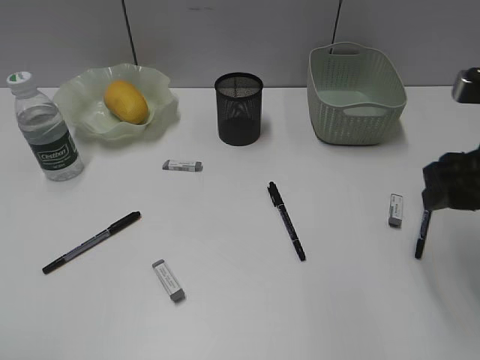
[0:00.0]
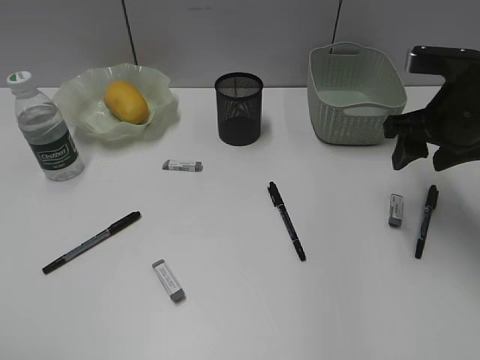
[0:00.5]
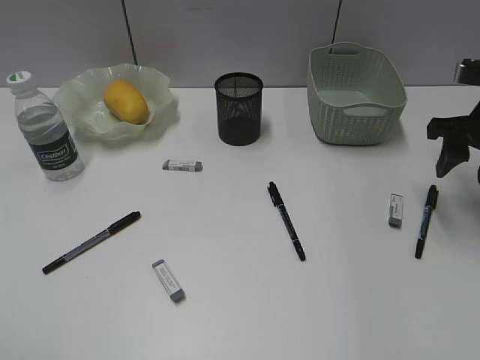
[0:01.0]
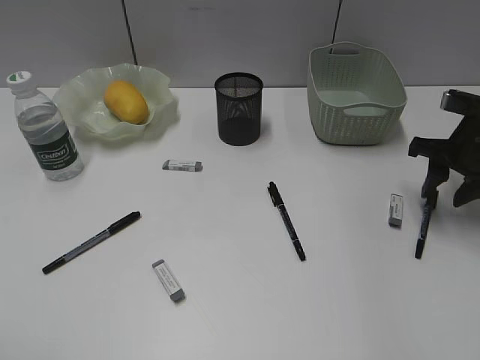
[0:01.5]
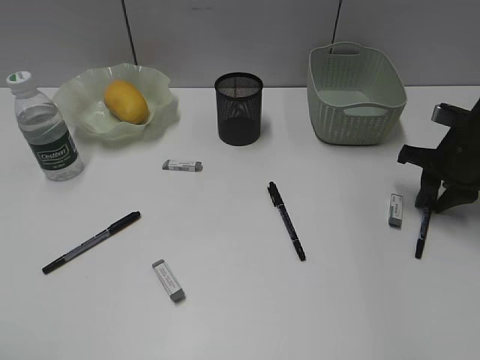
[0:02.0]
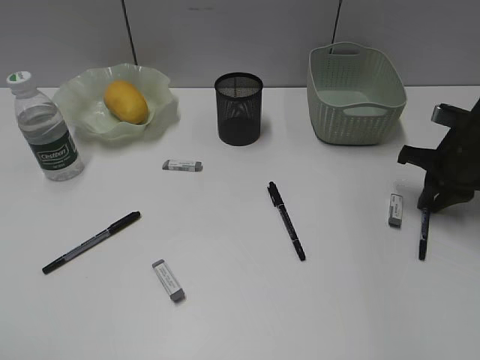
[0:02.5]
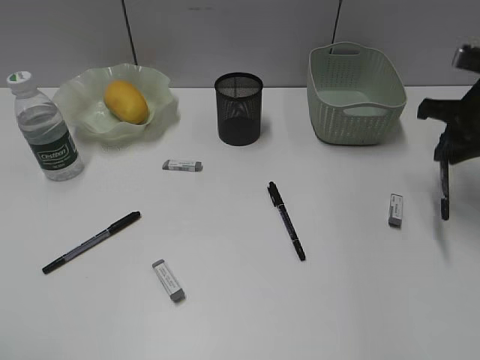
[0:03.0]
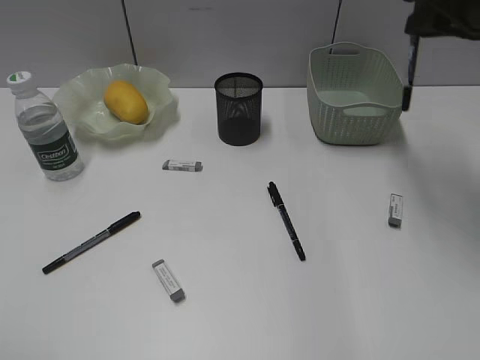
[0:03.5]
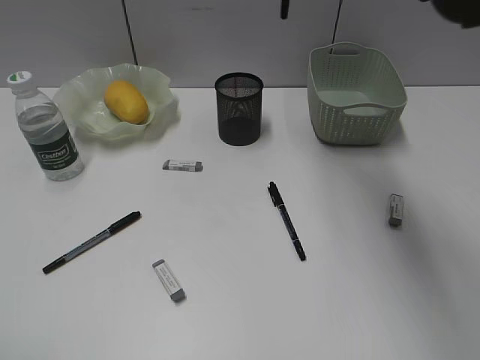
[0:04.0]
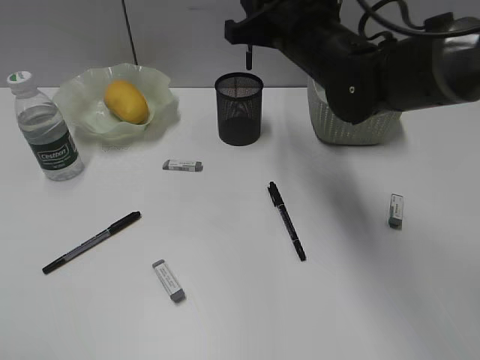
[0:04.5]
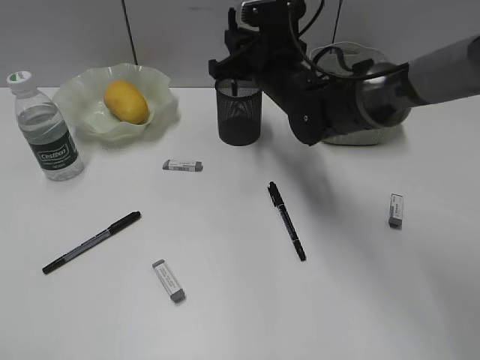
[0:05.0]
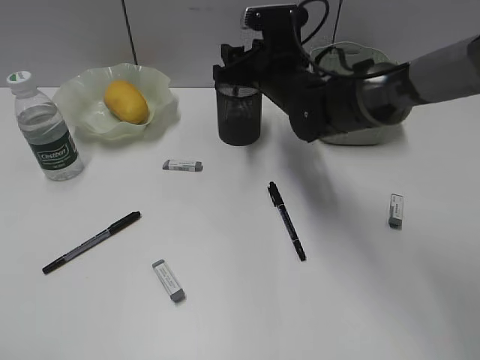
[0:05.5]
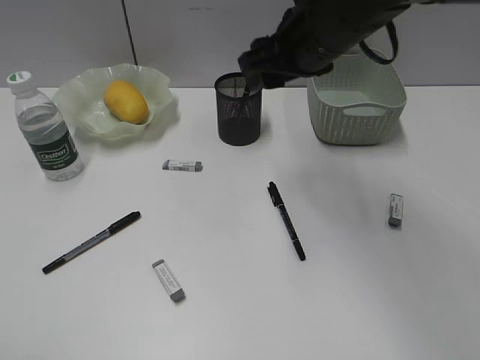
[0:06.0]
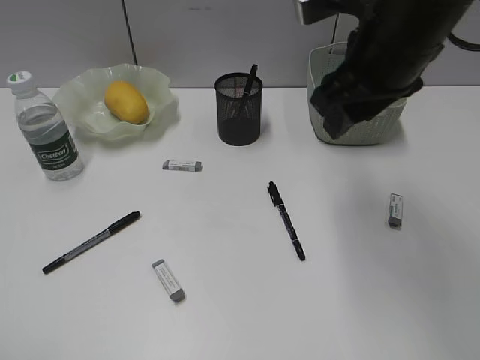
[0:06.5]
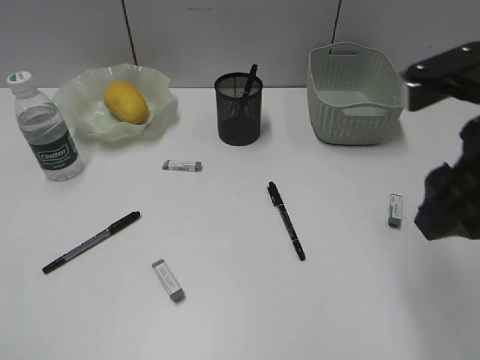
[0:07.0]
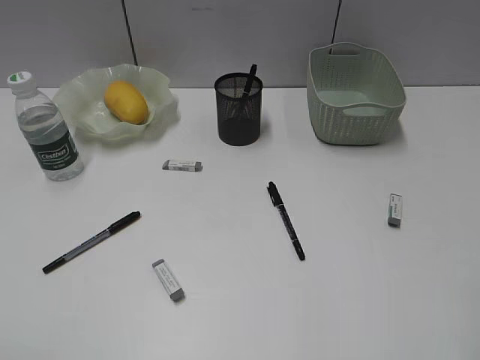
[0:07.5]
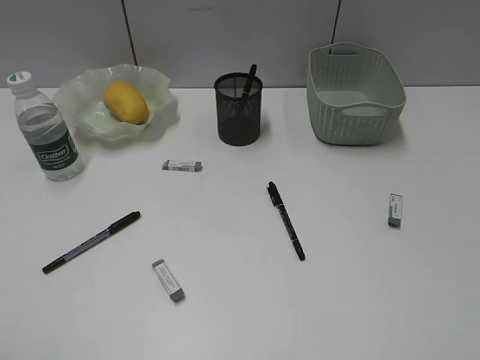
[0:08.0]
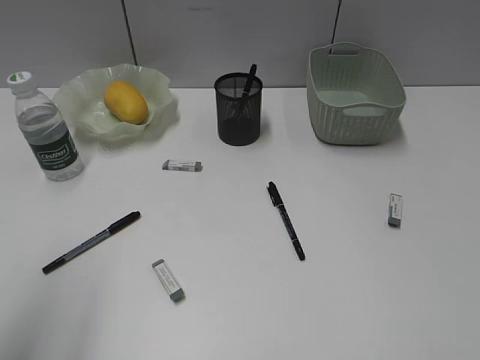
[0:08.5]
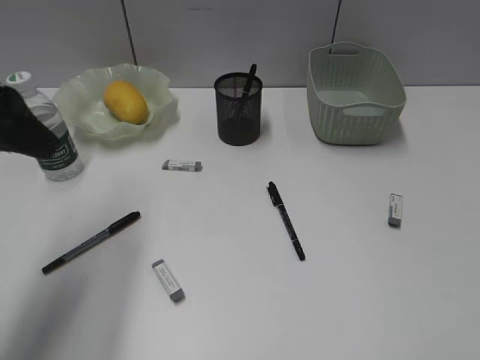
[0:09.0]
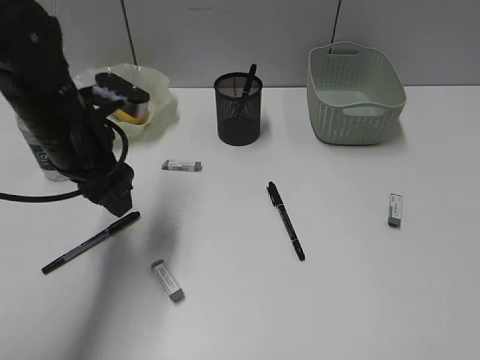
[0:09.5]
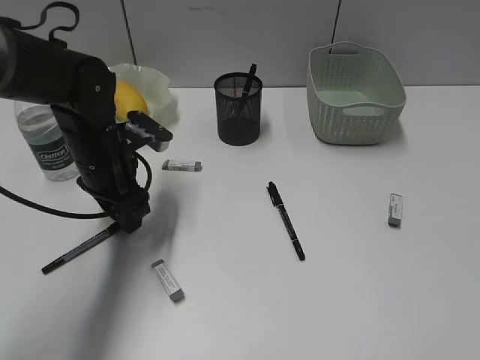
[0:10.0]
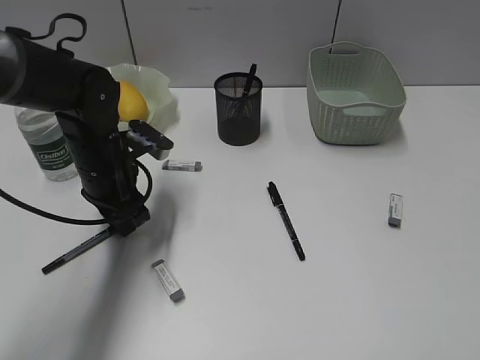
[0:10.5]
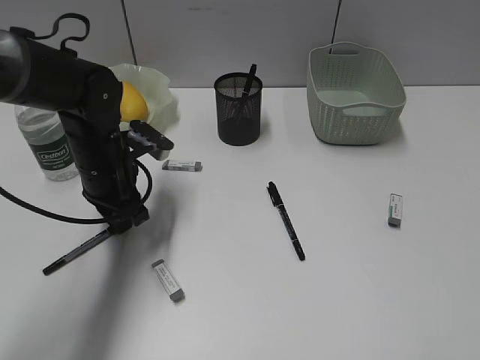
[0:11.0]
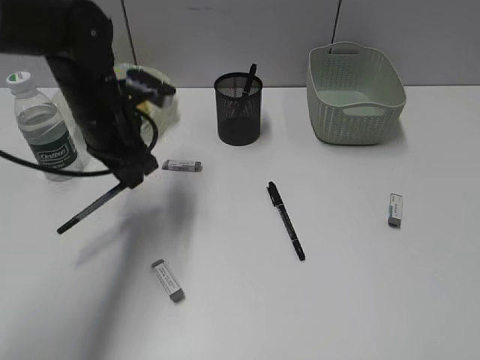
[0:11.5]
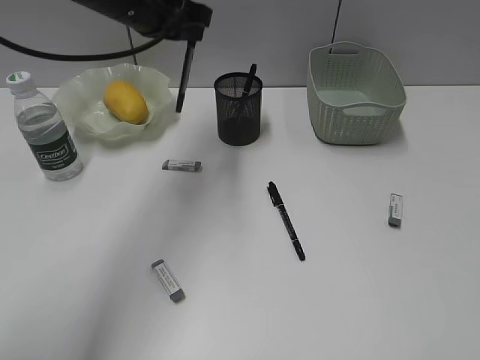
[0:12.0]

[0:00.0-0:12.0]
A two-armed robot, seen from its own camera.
Step, 0:00.0 to 0:02.5: Grasp the black pen with right gripper.
Step, 0:03.0 to 0:05.5: Place the black pen in pen holder with right gripper.
Step, 0:06.0 to 0:11.0: Grasp the black pen with left gripper.
0:00.0 to 0:02.0: The right gripper travels forward and downward by approximately 15 cm, and closes.
0:02.0 to 0:04.0: The right gripper travels upward and to the left by approximately 30 cm.
0:04.0 to 0:06.0: The right gripper is displaced downward by some 5 cm, and opens up.
0:06.0 to 0:08.0: The right gripper moves backward and to the right, roughly 40 cm.
0:08.0 to 0:10.0: The left gripper heads forward, downward and to the right, covering about 40 cm.
0:10.0 to 0:12.0: The left gripper travels upward by roughly 15 cm, and closes.

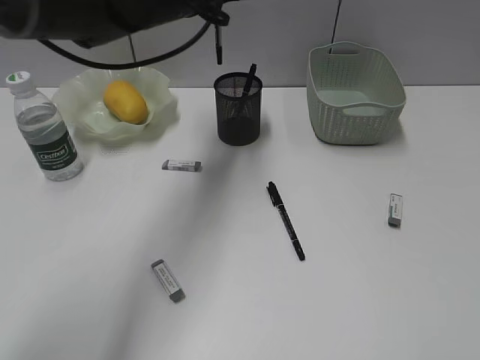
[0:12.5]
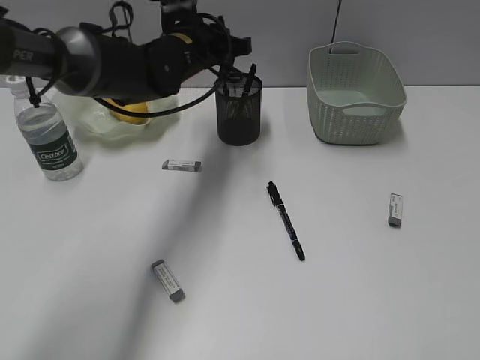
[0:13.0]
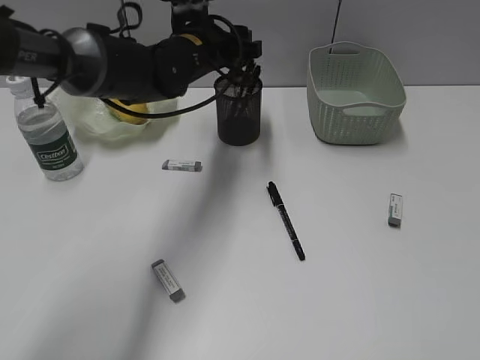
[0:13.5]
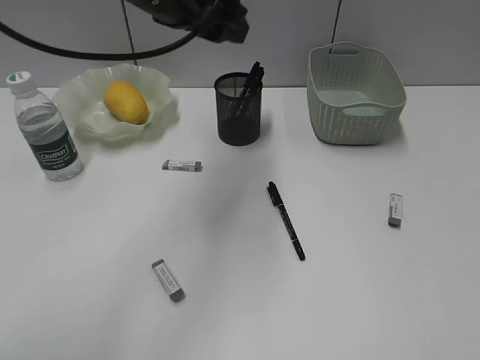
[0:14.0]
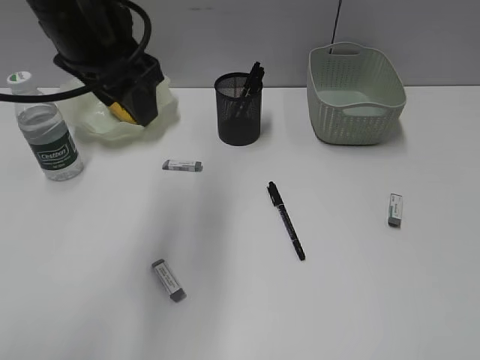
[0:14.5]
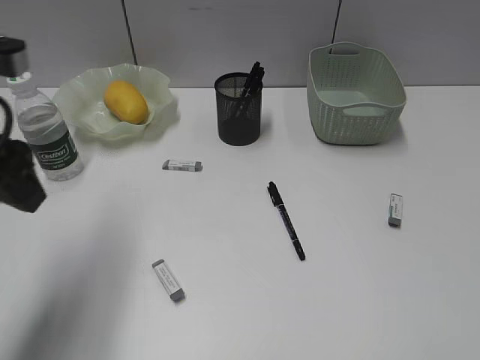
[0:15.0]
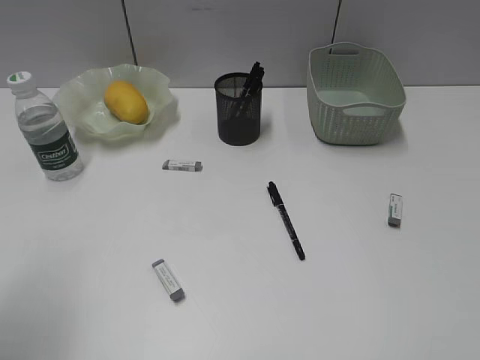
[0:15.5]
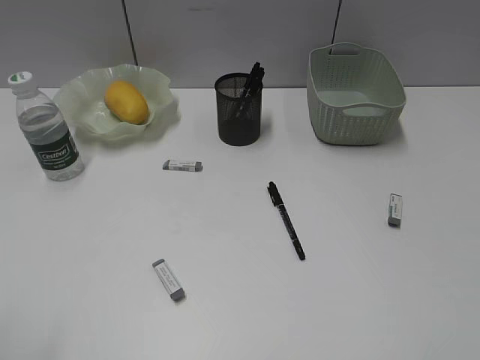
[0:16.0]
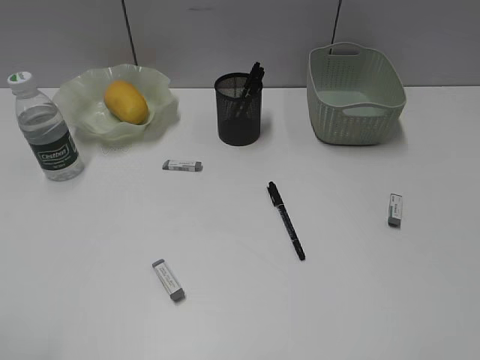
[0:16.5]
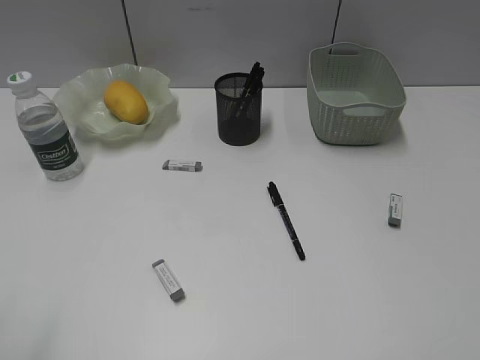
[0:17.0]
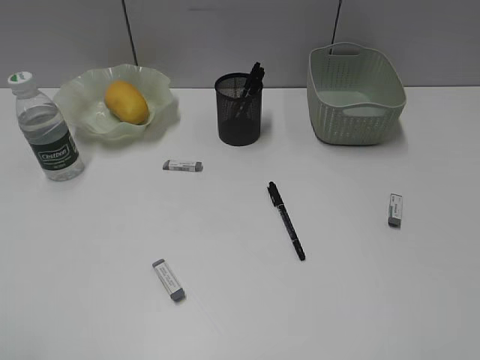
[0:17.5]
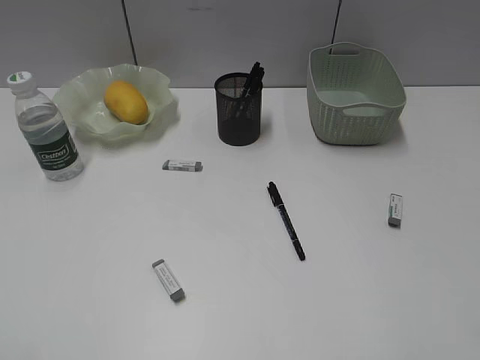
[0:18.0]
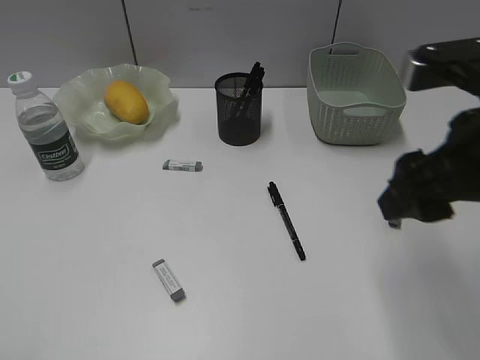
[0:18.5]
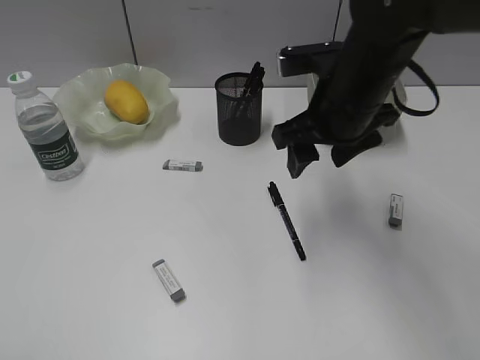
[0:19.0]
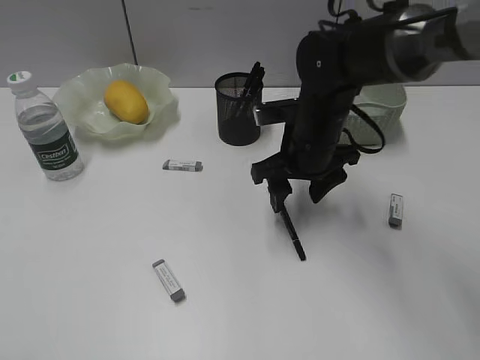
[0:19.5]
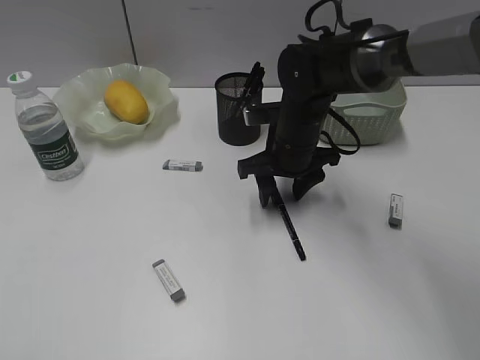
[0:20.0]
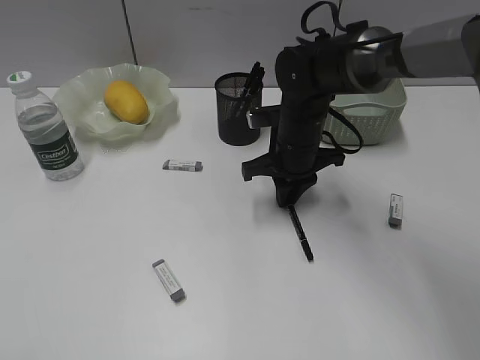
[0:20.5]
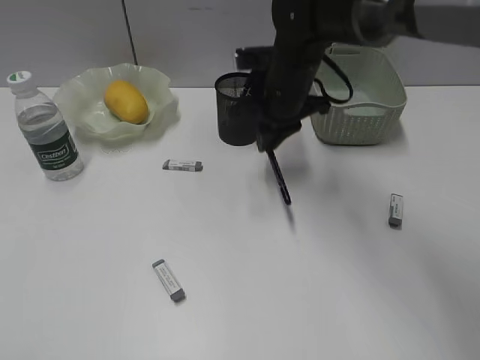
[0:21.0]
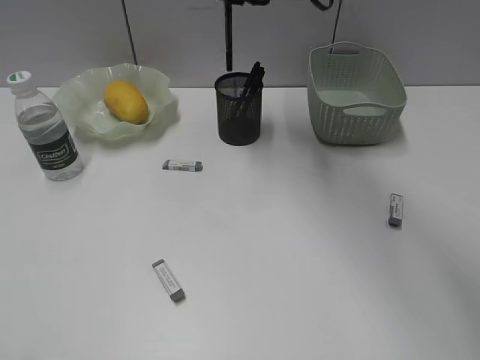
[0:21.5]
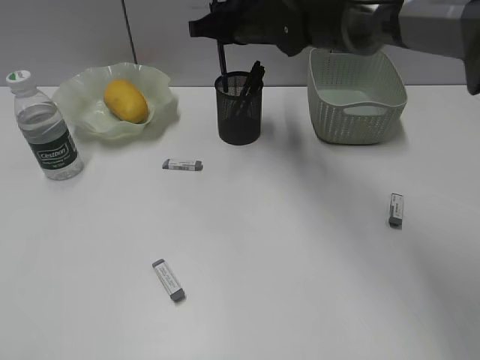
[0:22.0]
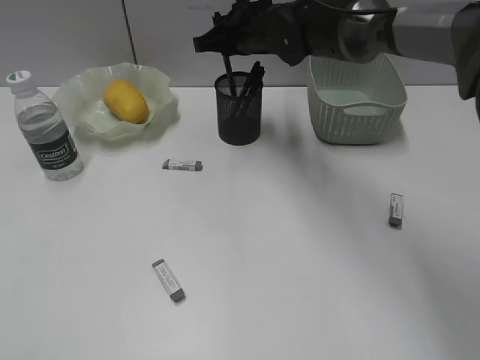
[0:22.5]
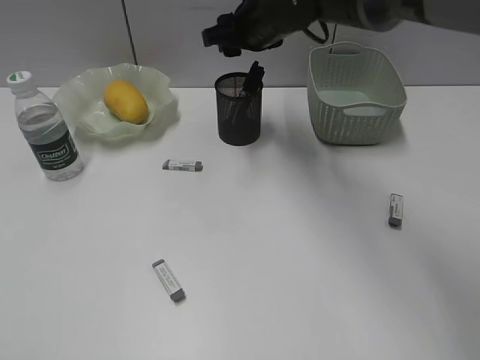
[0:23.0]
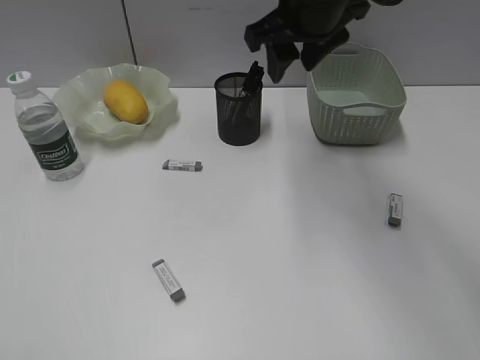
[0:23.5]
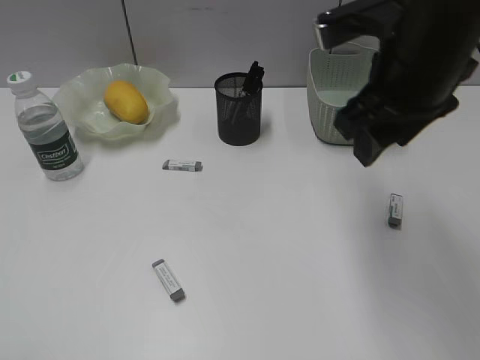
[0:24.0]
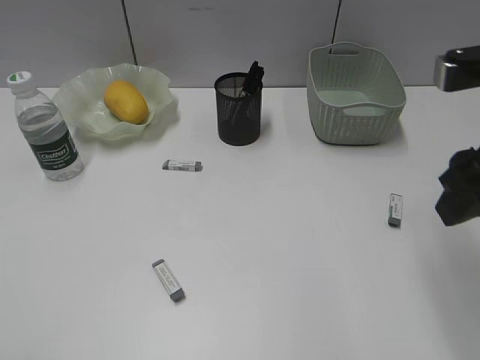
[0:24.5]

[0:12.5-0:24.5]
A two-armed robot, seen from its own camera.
Step, 0:14.0 to 0:20.5: Grasp the black pen with right gripper.
Step, 0:21.0 to 0:22.5: Place the black pen in pen holder with right gripper.
0:12.5 to 0:14.5: The left gripper is displaced backward and to the left by about 15 cm, and opens.
0:14.5 to 0:16.5: The left gripper is displaced backward and to the left by some 35 cm.
0:16.5 to 0:18.5: The right gripper shifts approximately 20 cm forward and to the left.
0:18.5 to 0:20.5: The right gripper travels forward, downward and to the left by some 25 cm, and closes its fingers.
0:20.5 to 0:22.5: The right gripper is displaced forward and upward by roughly 15 cm.
0:22.5 to 0:24.5: The right gripper goes about 35 cm backward and to the right, and opens.

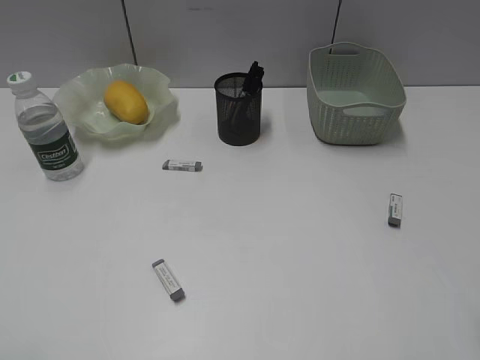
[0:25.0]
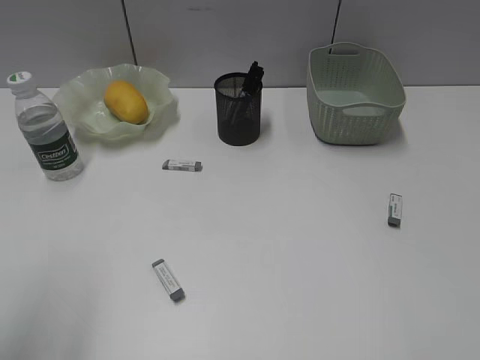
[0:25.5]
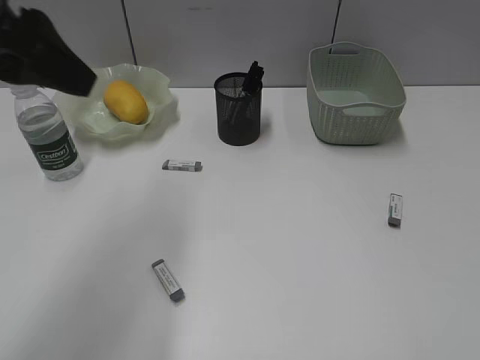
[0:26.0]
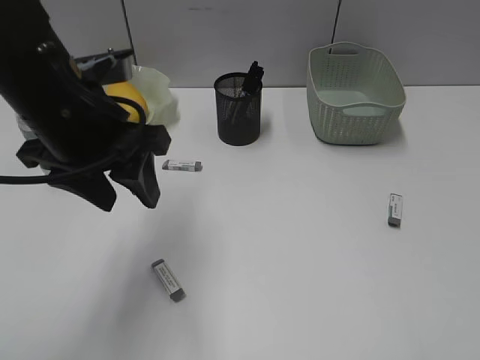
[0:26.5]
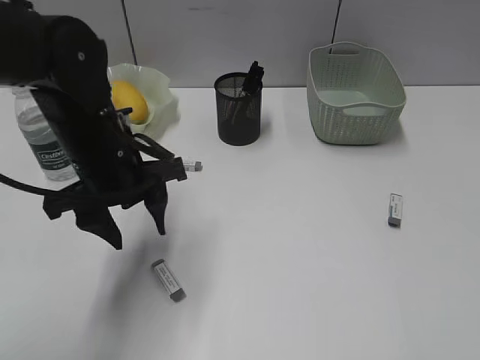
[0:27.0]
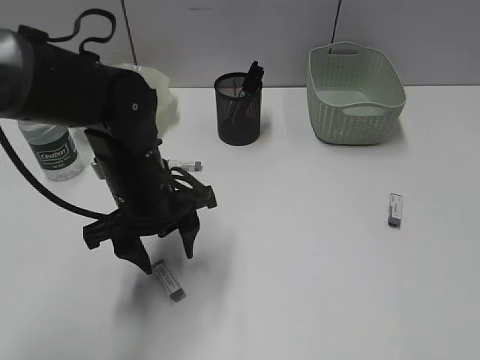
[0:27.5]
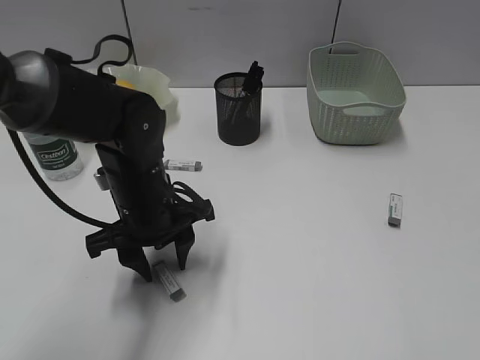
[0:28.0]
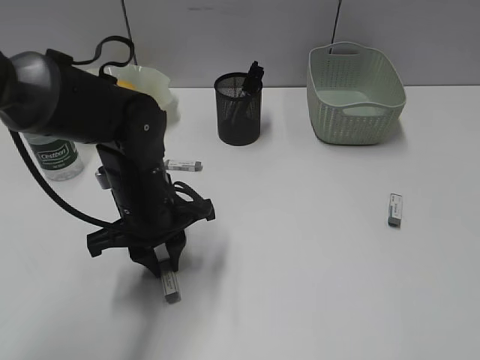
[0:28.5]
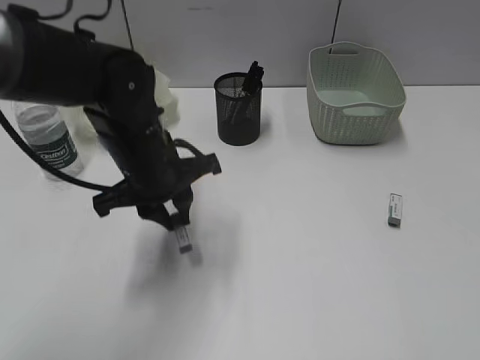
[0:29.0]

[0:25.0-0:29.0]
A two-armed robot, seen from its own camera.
Step, 0:25.0 to 0:28.5: Grasp the eraser with left gripper.
0:25.0 to 0:27.0: The right gripper goes approximately 5 cm backward, while the left gripper travels forward and to the right by roughly 35 cm.
0:27.0 to 0:29.0: The left gripper closes its fingers.
